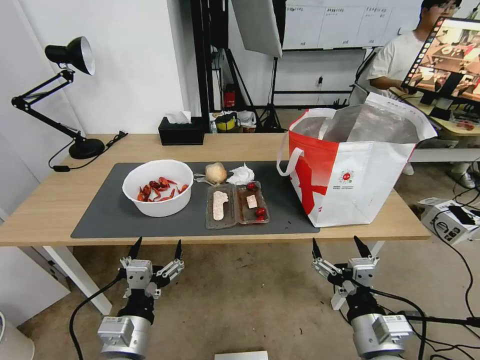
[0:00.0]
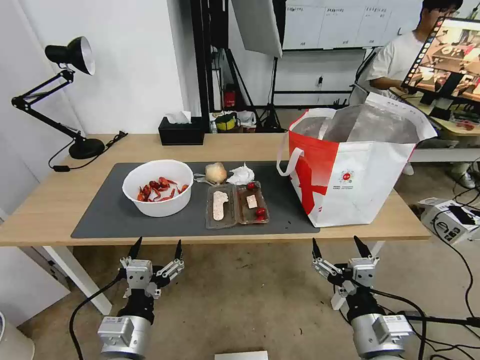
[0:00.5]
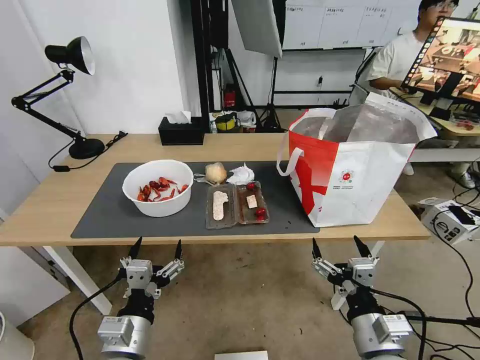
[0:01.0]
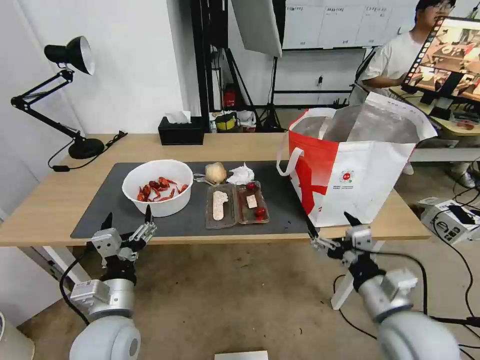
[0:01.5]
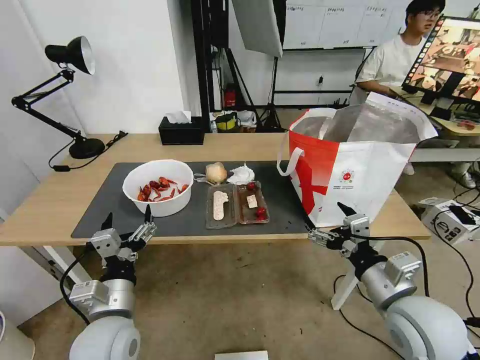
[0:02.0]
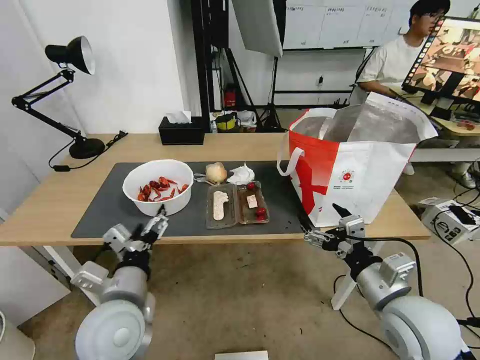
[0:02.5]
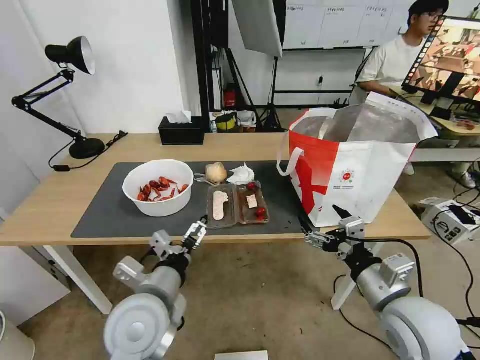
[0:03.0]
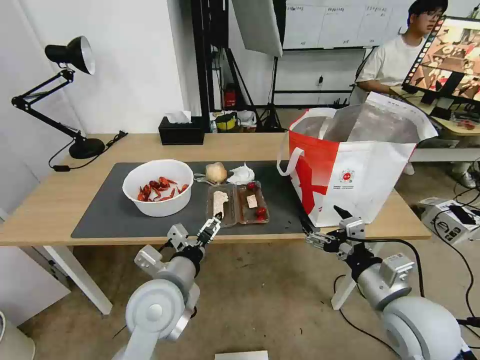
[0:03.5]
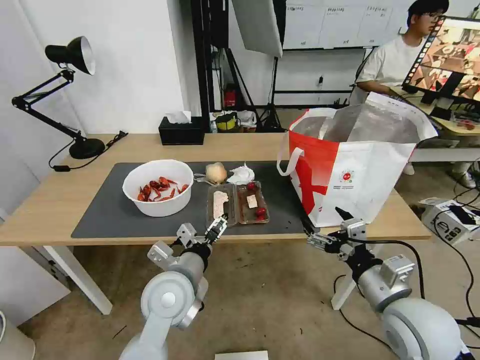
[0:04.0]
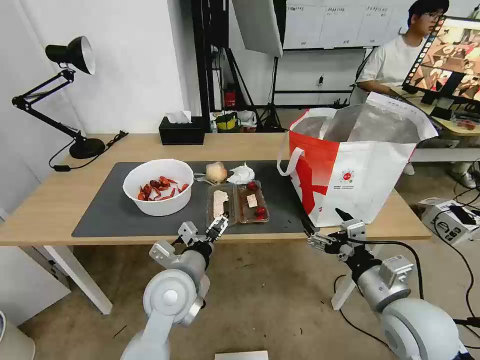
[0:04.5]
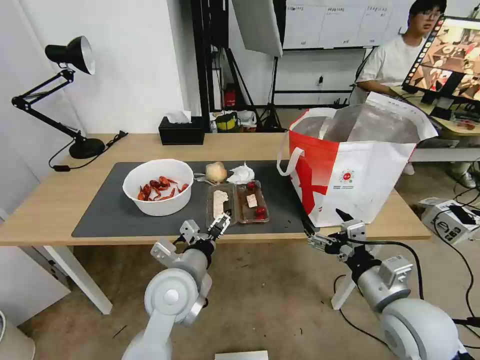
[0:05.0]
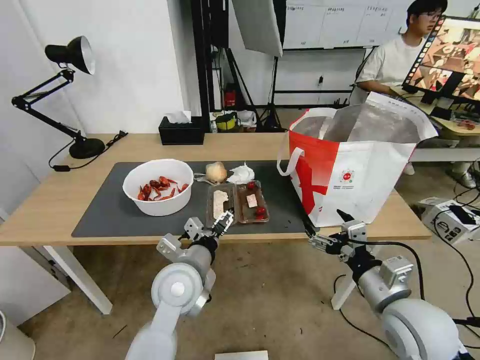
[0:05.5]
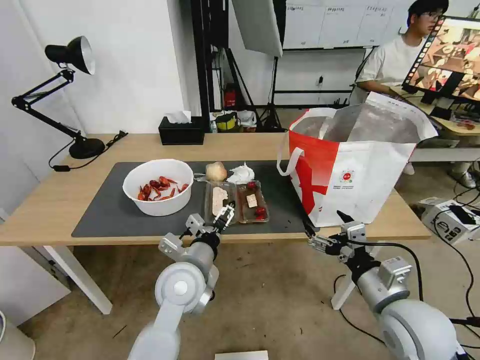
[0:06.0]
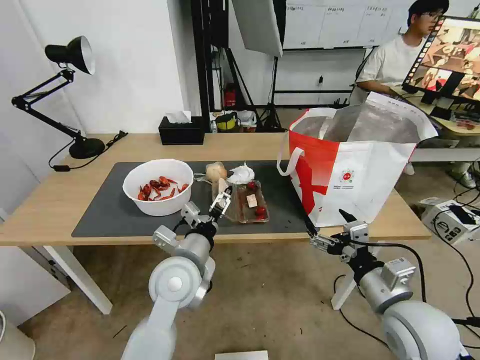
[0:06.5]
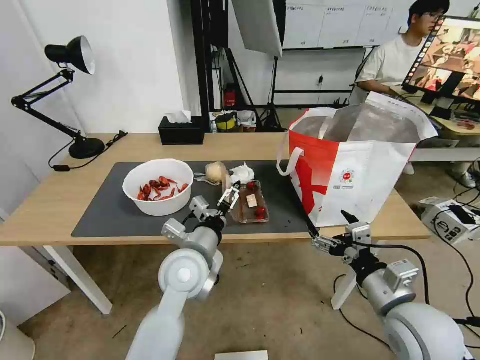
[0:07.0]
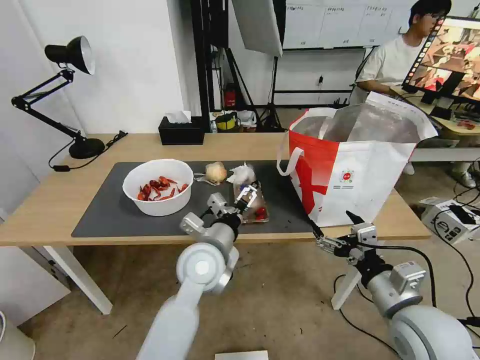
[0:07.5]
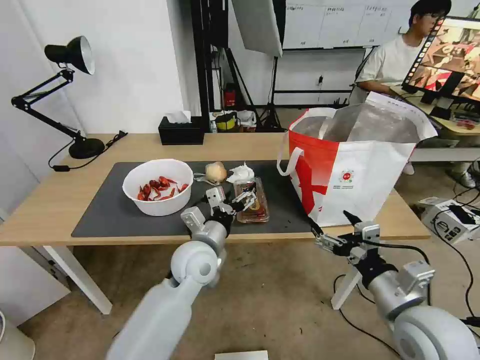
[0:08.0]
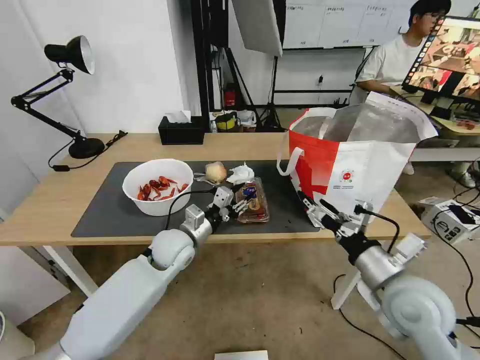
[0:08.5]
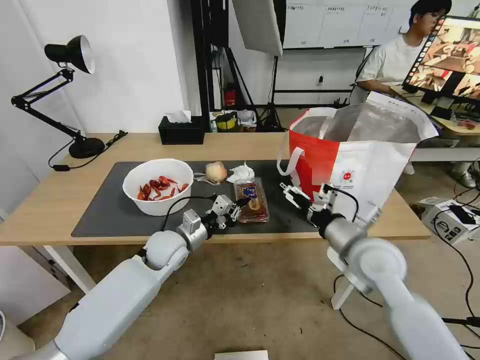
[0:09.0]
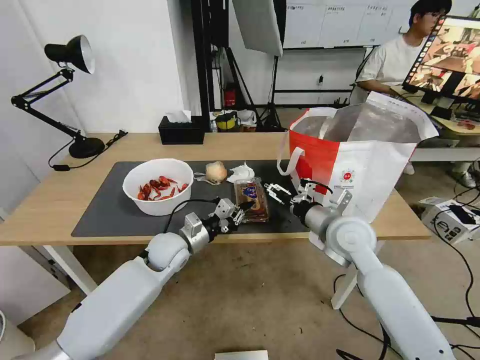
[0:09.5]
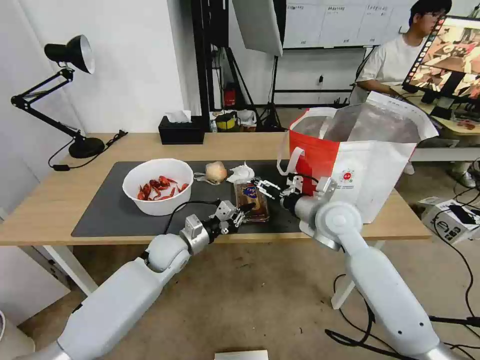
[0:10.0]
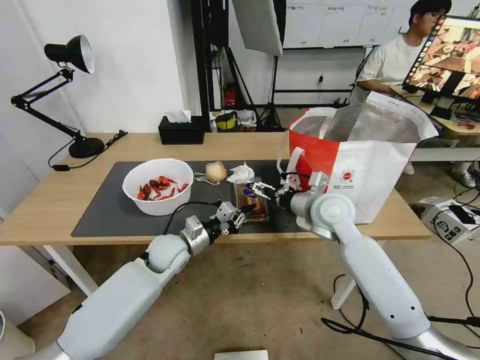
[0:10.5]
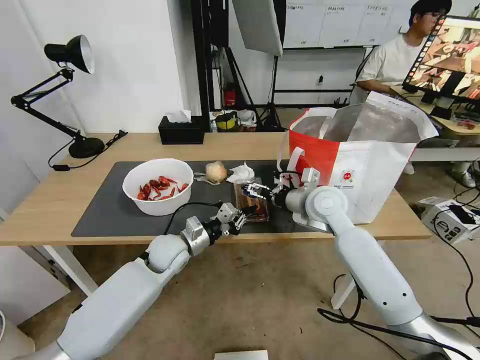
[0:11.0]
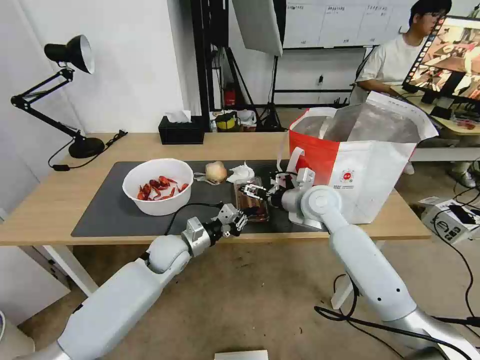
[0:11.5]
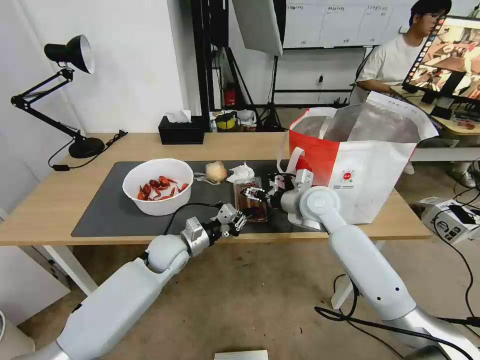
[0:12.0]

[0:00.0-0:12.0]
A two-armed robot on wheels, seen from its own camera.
Task of the whole recording: Pick up the trash from the table and place it into the takeout bag.
0:02.0 to 0:04.0: The left gripper heads to the right and forward, covering about 10 cm.
0:04.0 to 0:06.0: The grippers move only a little.
0:06.0 to 0:08.0: The left gripper is displaced forward by some 5 cm.
0:08.0 to 0:10.0: The left gripper moves to the left, forward and downward, roughly 10 cm, and closes. Meanwhile the right gripper is displaced forward by approximately 20 cm.
0:10.0 to 0:12.0: The right gripper goes about 5 cm forward.

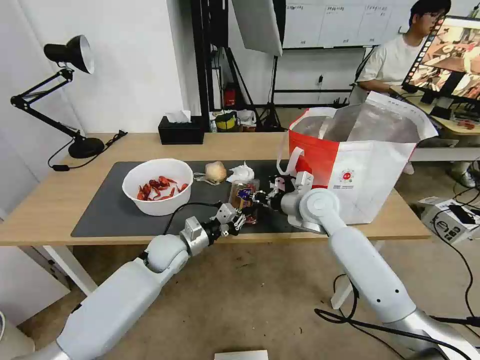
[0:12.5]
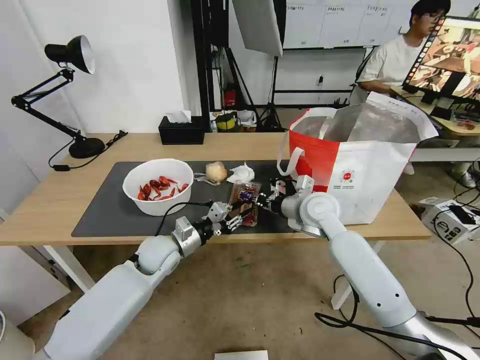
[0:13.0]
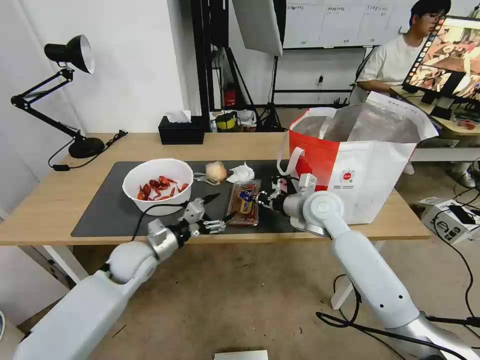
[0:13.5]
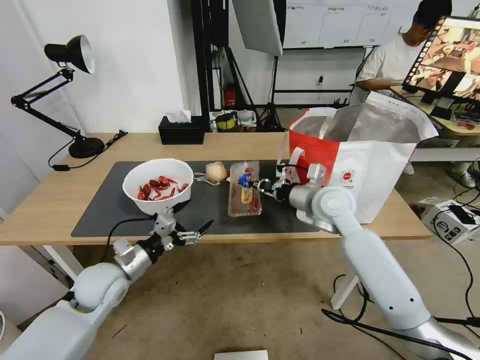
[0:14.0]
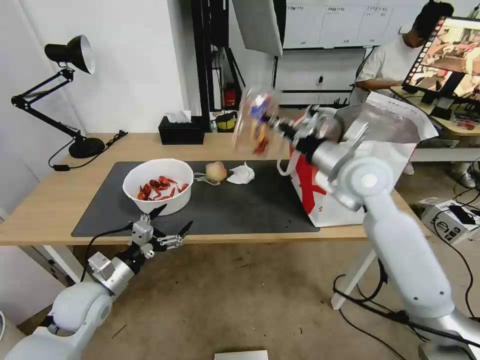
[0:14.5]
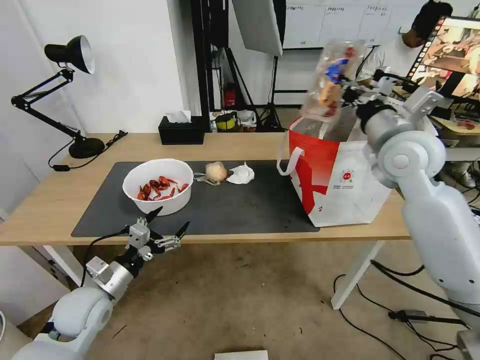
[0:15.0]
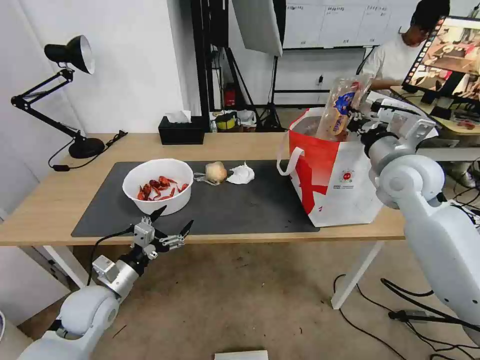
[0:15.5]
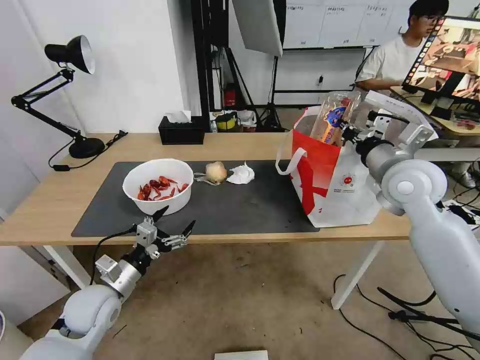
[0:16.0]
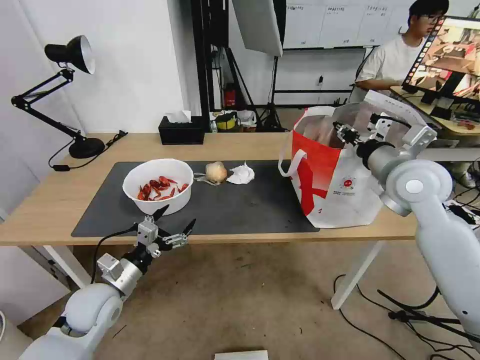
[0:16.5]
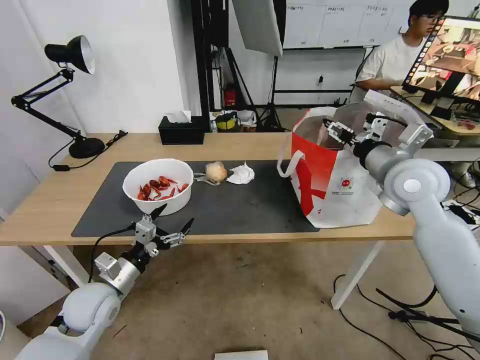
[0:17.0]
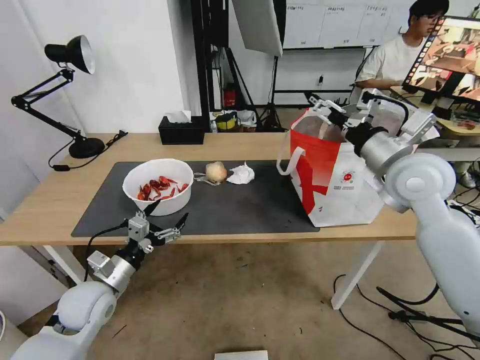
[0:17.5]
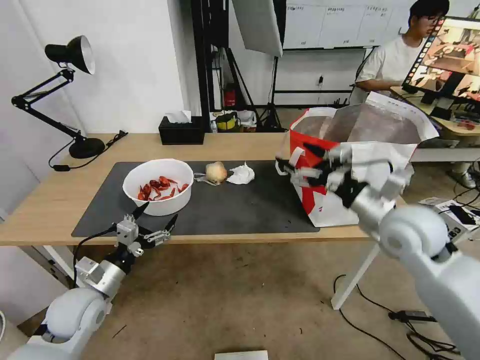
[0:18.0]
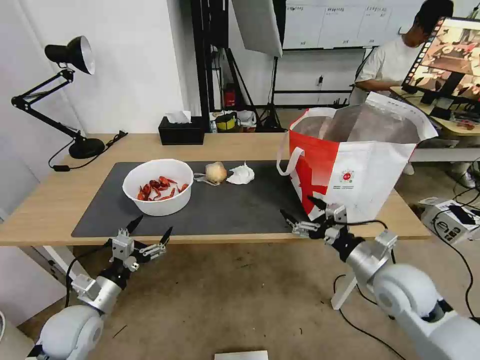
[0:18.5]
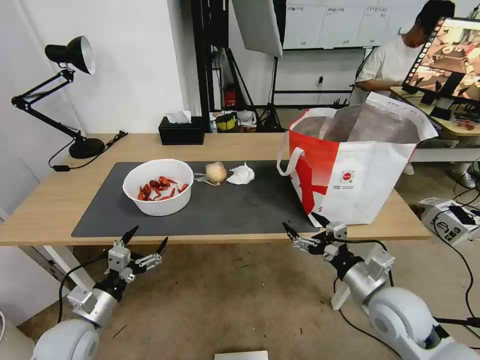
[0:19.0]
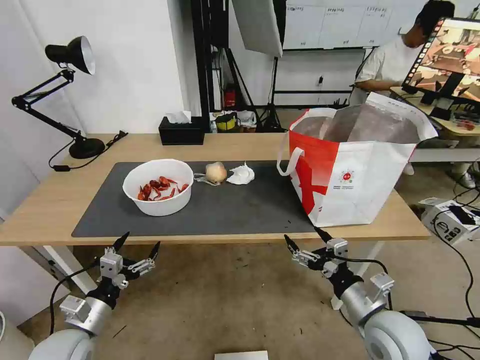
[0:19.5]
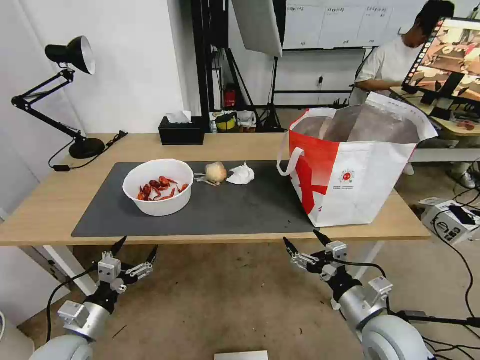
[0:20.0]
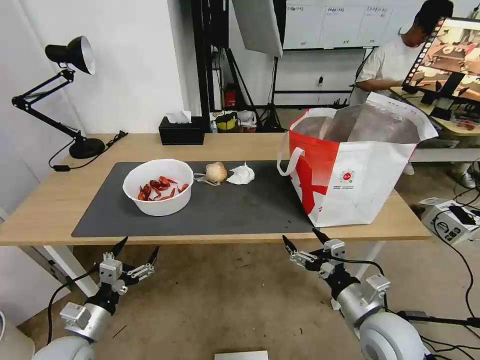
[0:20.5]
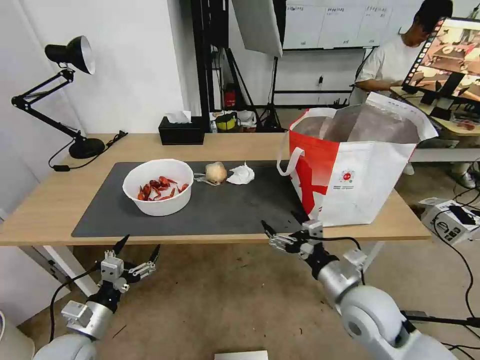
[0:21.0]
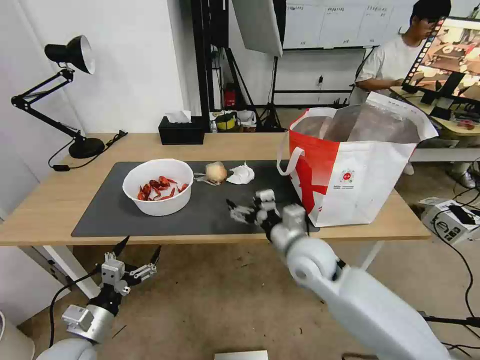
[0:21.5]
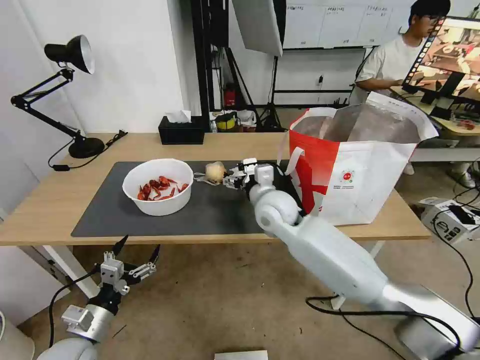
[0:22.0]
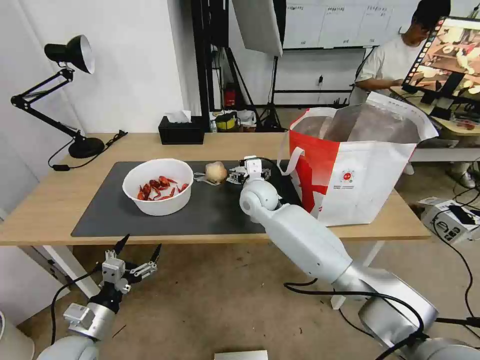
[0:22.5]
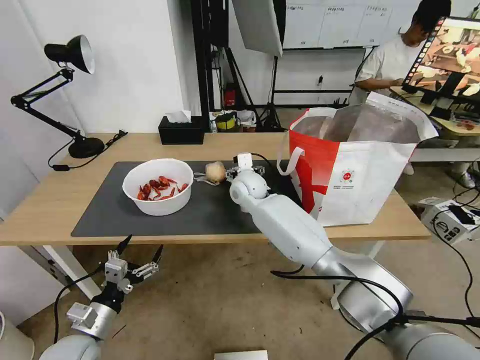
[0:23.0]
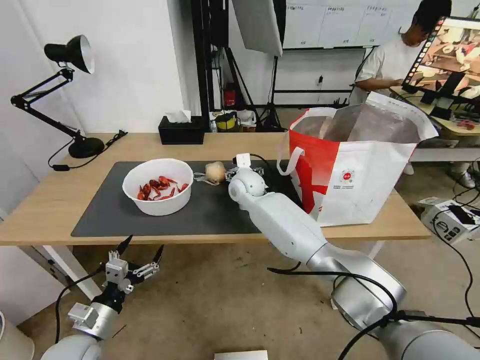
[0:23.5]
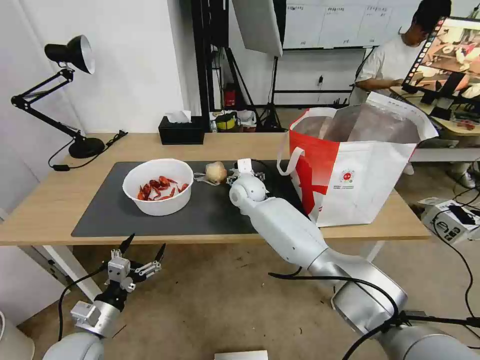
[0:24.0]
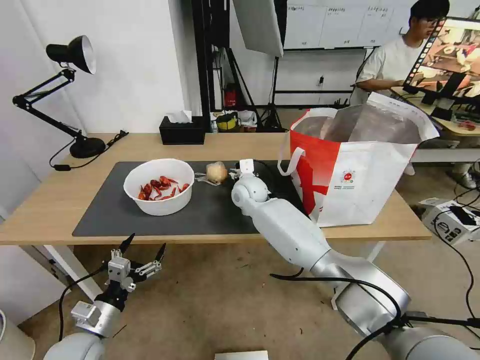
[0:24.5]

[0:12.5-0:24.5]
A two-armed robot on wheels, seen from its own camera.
Task of the whole recording: Pick up the trash from the table and place it into the takeout bag.
0:12.5 to 0:14.5: The left gripper shifts about 20 cm to the left and backward, and opens its fingers. The right gripper moves upward, about 10 cm.
0:14.5 to 0:16.5: The right gripper moves to the right, some 10 cm.
0:16.5 to 0:18.5: The right gripper goes about 20 cm downward and backward, and opens. Meanwhile the left gripper shifts by approximately 5 cm.
0:18.5 to 0:20.5: The right gripper travels backward and downward by some 10 cm. The left gripper heads backward, covering approximately 5 cm.
0:20.5 to 0:22.5: The right gripper moves forward and to the left, about 35 cm.
0:22.5 to 0:24.5: The right gripper moves approximately 5 cm, and closes up.

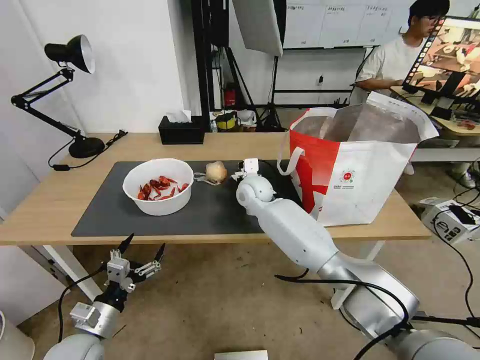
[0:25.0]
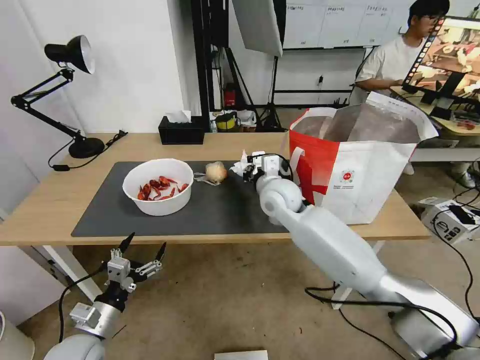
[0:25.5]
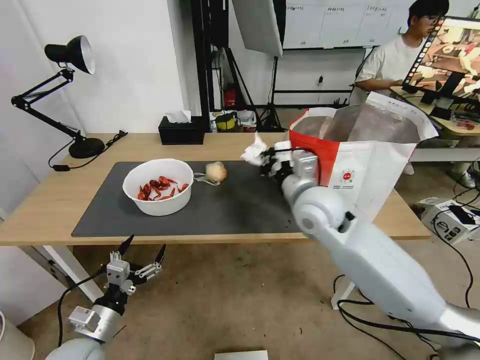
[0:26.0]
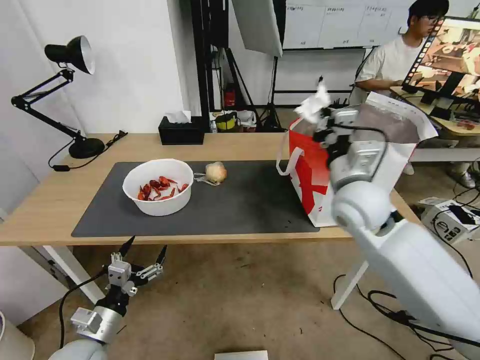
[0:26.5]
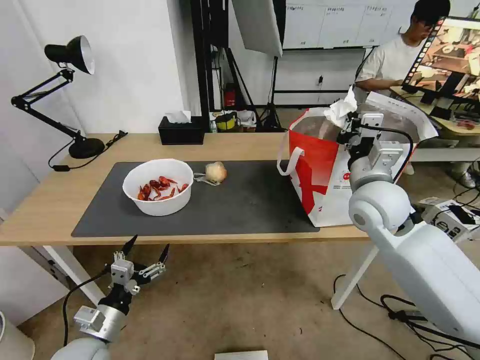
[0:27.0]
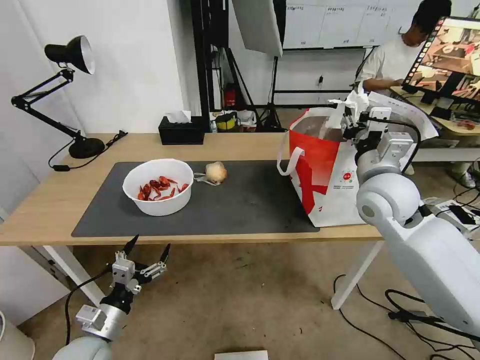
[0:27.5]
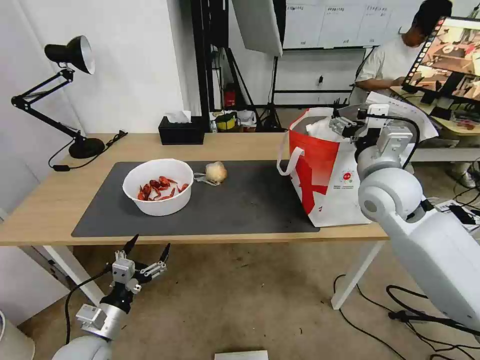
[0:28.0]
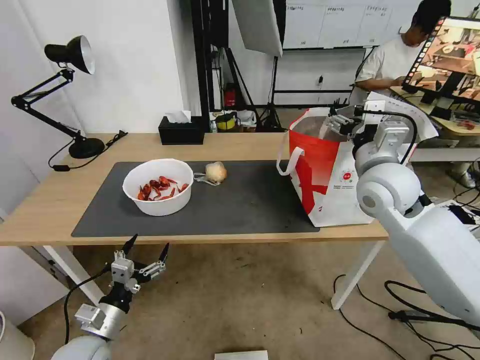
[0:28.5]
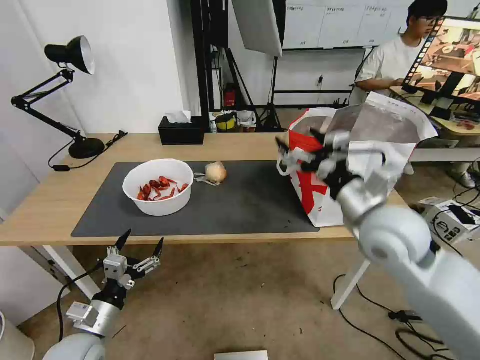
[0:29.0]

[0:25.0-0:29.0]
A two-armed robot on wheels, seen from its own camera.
Task of the whole recording: Pick up the trash from the table and place it into the takeout bag.
0:25.0 to 0:27.0: The right gripper is displaced to the right, backward and upward by approximately 30 cm.
0:27.0 to 0:29.0: The right gripper is displaced backward by approximately 5 cm, and opens up.
